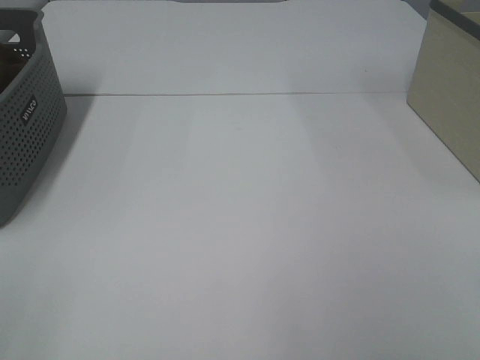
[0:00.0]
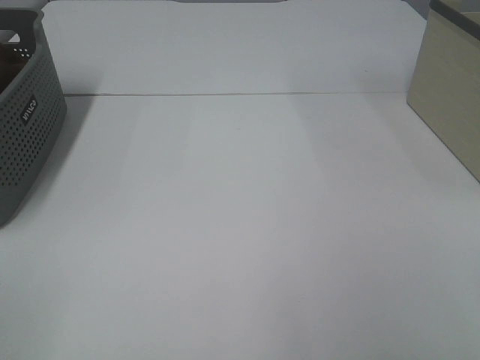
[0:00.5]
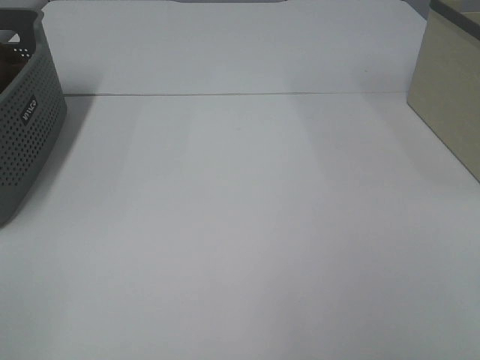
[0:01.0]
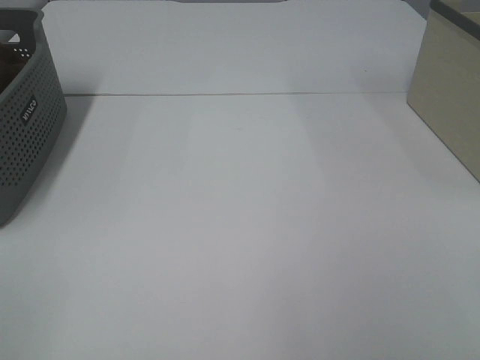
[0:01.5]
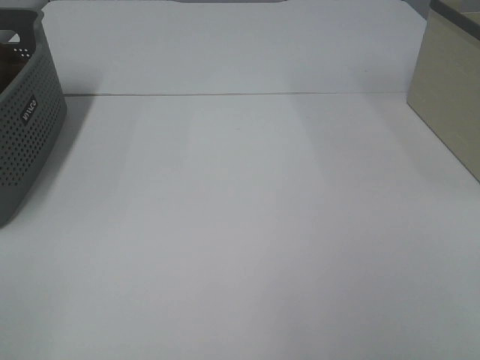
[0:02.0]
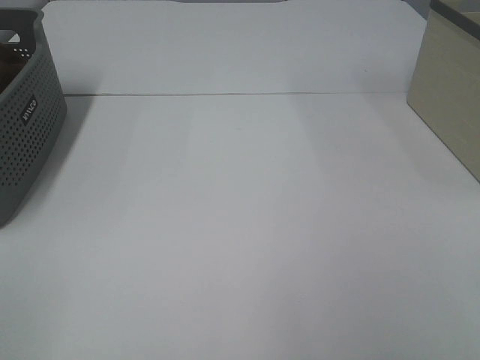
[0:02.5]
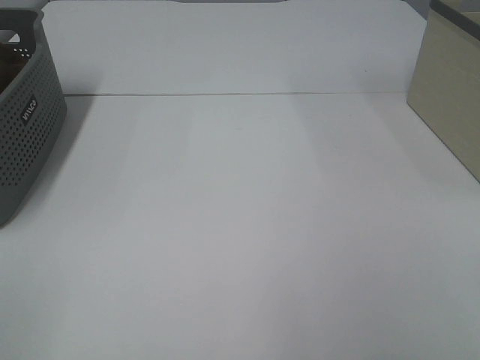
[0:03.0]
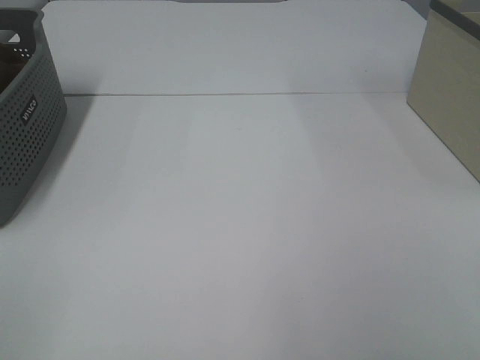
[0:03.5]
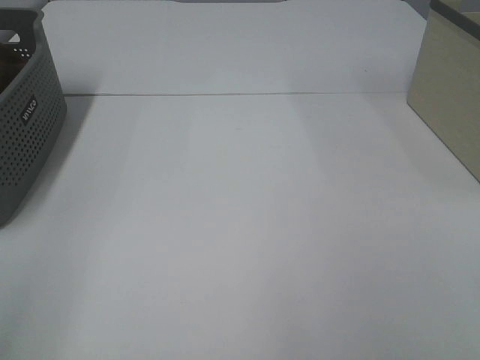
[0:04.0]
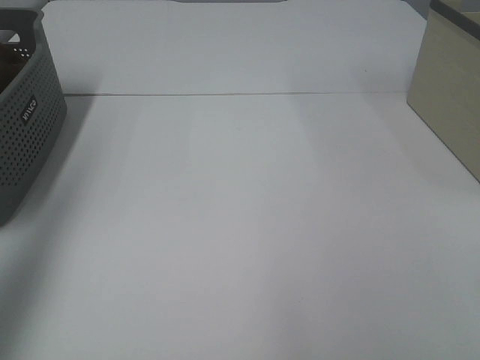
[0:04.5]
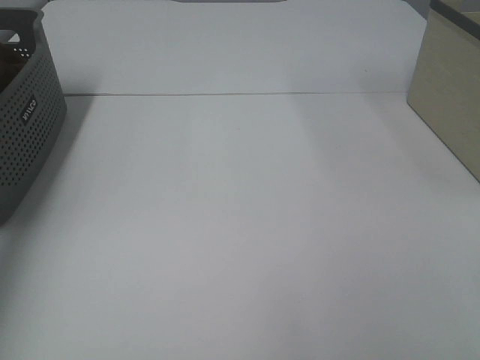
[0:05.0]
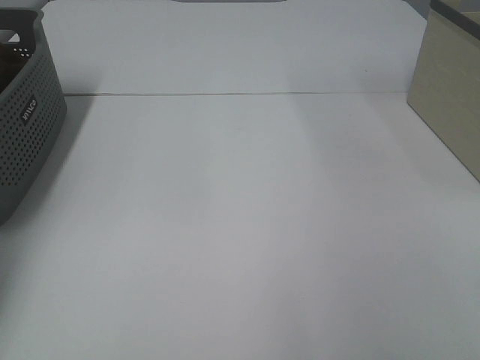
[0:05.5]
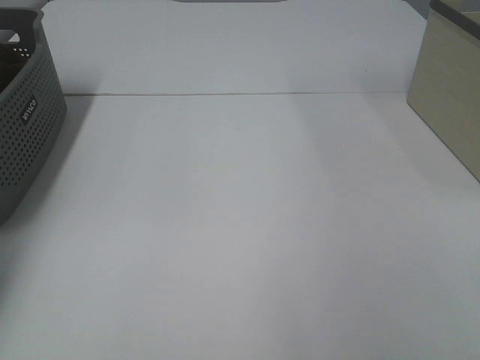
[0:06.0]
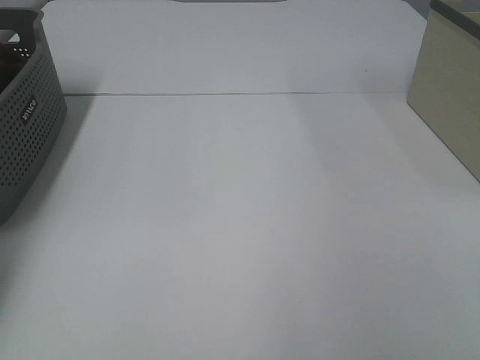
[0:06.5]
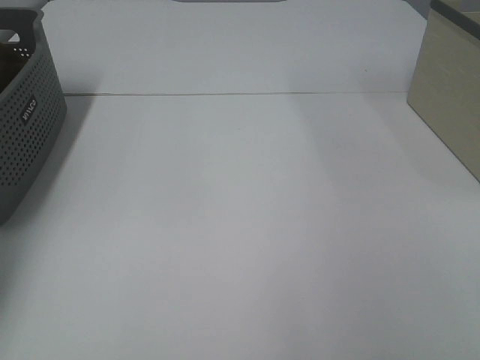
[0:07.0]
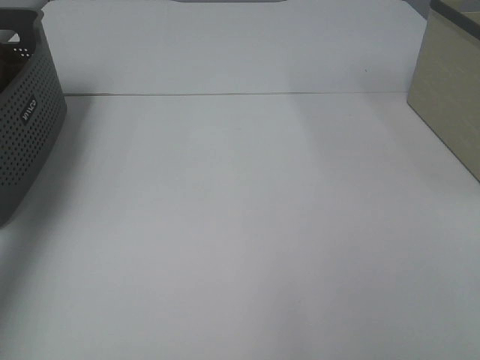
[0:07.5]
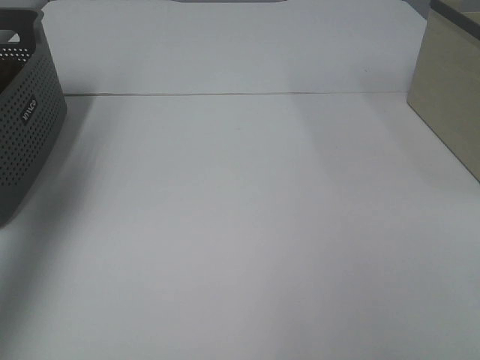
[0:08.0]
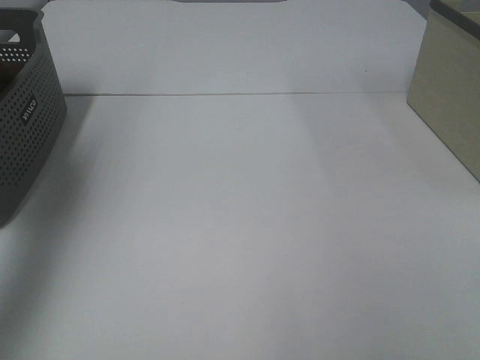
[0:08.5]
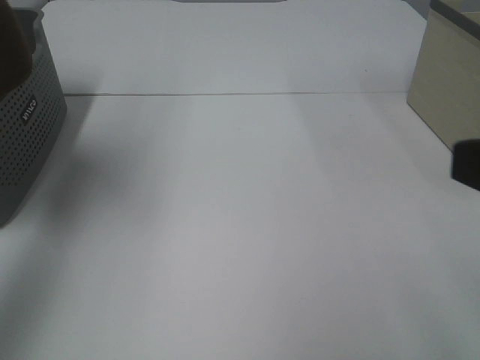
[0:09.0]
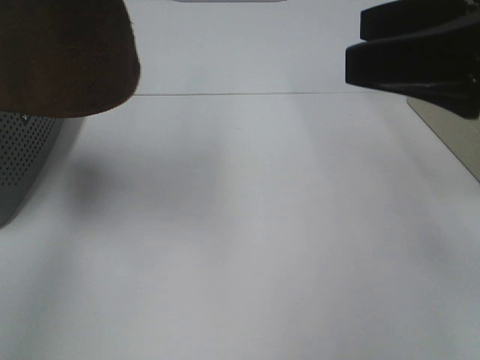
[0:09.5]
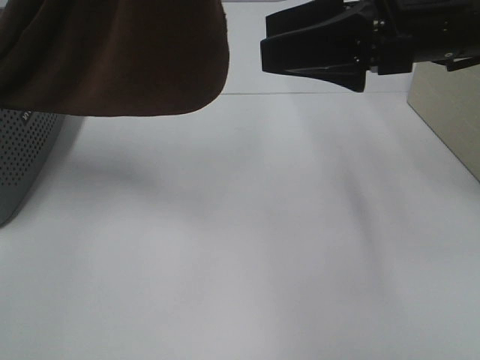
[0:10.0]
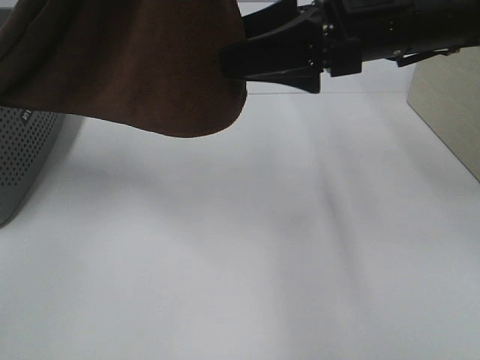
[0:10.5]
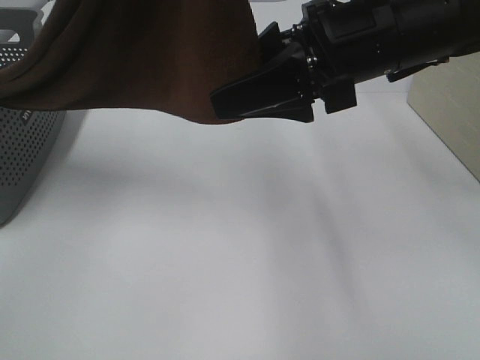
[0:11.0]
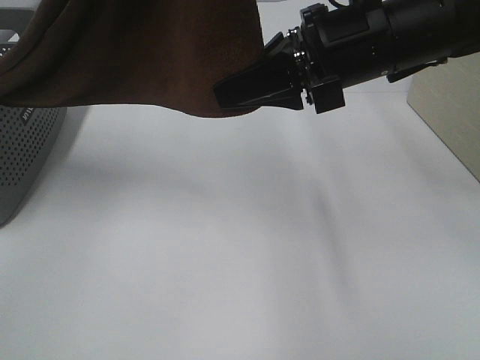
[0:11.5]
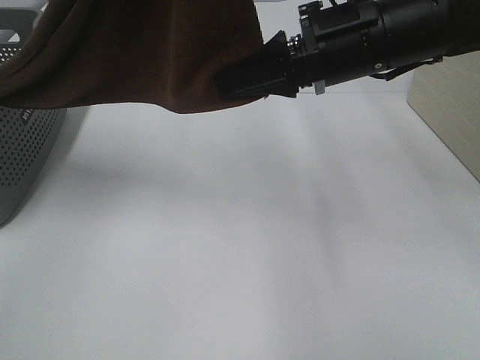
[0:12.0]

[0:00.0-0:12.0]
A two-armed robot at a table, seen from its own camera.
Task of the whole recording: Remove the towel and place it.
Step, 0:08.0 to 0:12.0: Right hand: grab a corner of the brown towel and straighten it.
0:00.0 to 0:02.0: Both grippers stay put.
0:04.0 to 0:06.0: The left gripper goes some 40 cm forward.
0:06.0 to 0:08.0: The left gripper is displaced upward and backward by approximately 35 cm, and closes up.
0:08.0 to 0:10.0: The left gripper shifts approximately 20 cm to the right. Meanwhile the right gripper travels forward and to the left by approximately 35 cm.
0:10.0 to 0:12.0: The right gripper closes its fingers.

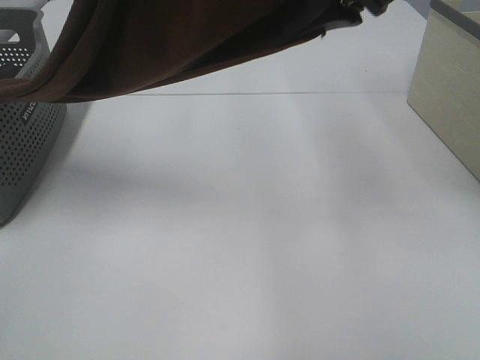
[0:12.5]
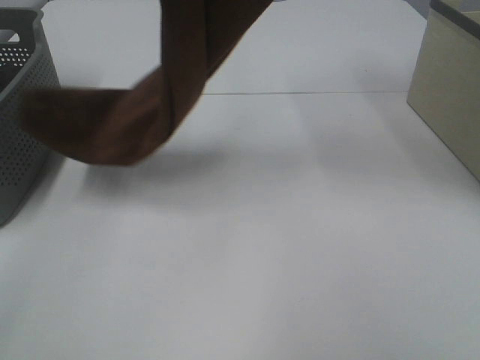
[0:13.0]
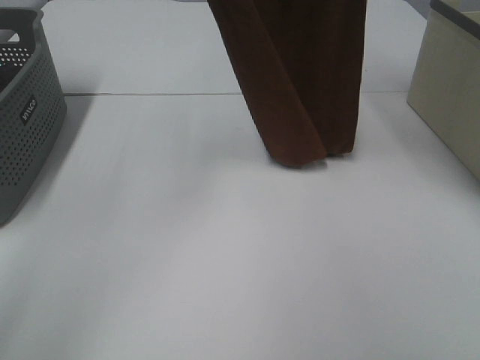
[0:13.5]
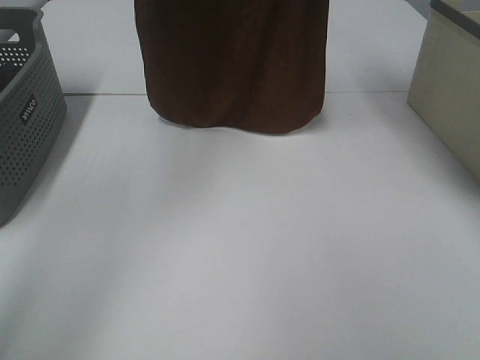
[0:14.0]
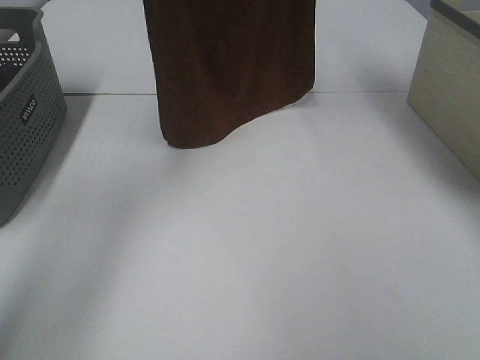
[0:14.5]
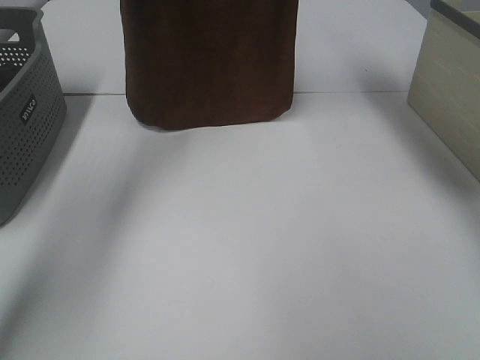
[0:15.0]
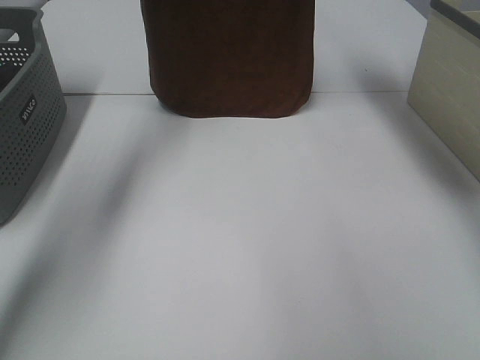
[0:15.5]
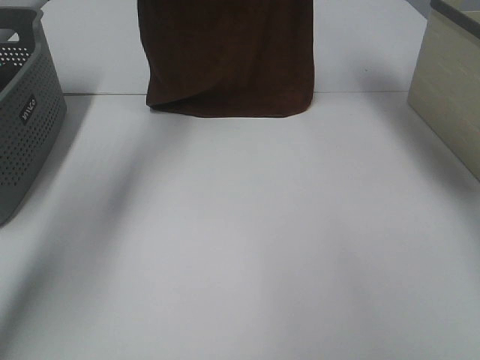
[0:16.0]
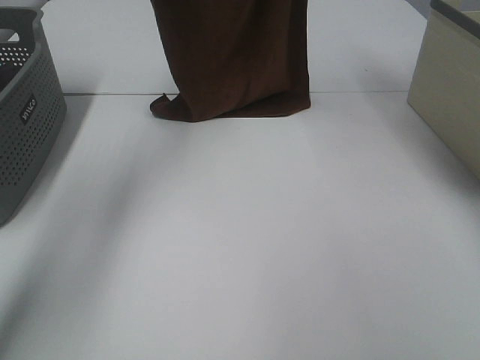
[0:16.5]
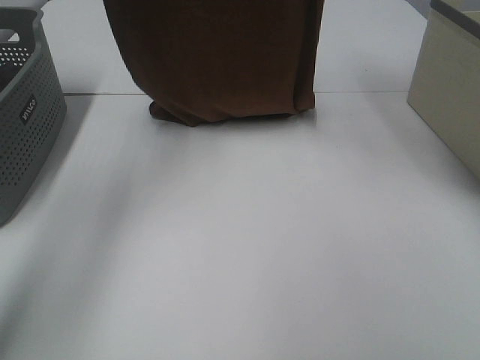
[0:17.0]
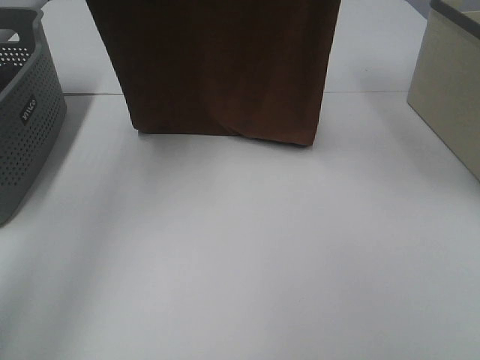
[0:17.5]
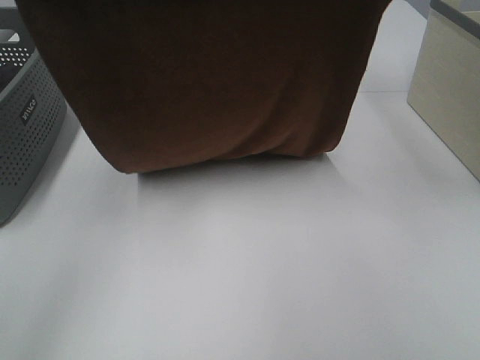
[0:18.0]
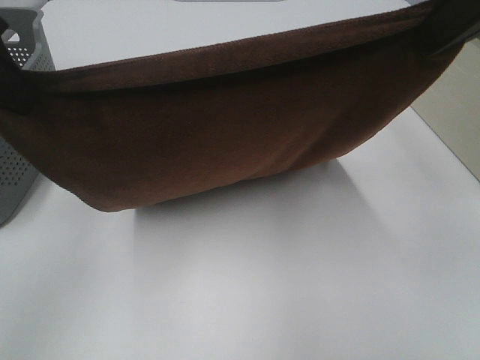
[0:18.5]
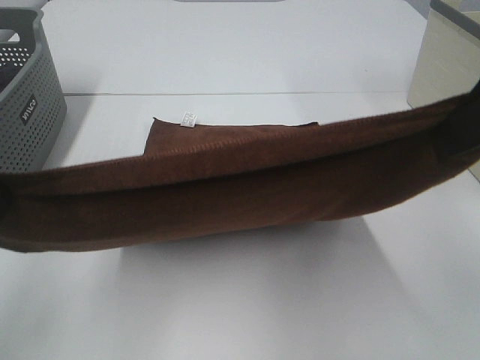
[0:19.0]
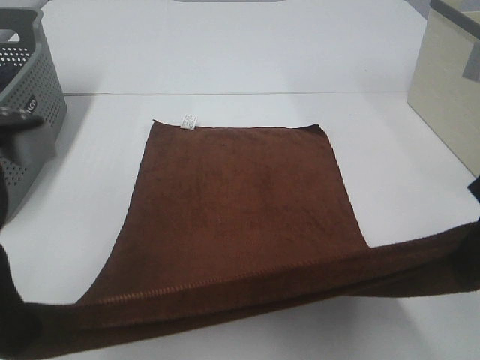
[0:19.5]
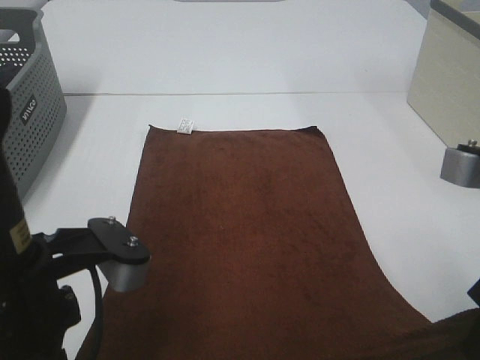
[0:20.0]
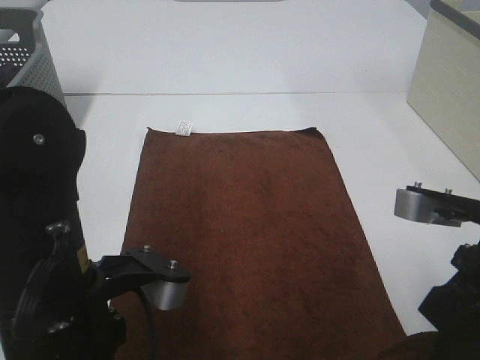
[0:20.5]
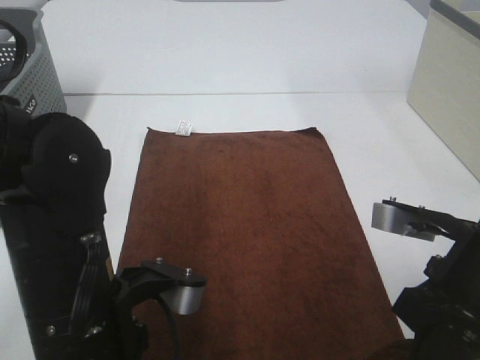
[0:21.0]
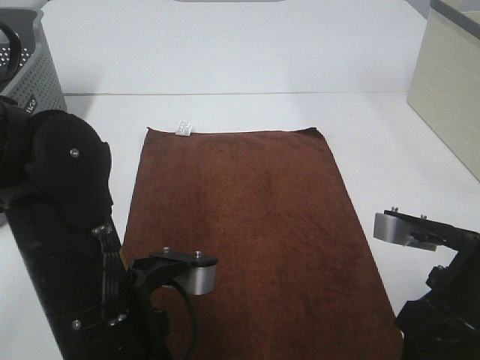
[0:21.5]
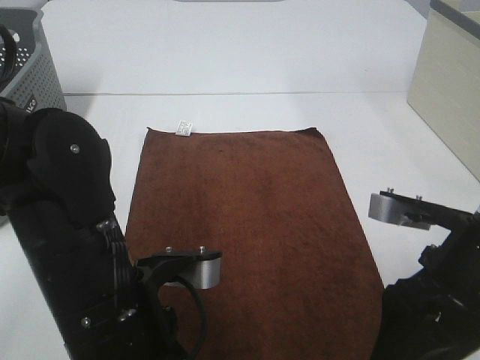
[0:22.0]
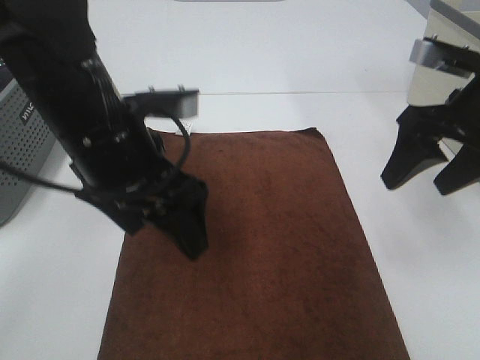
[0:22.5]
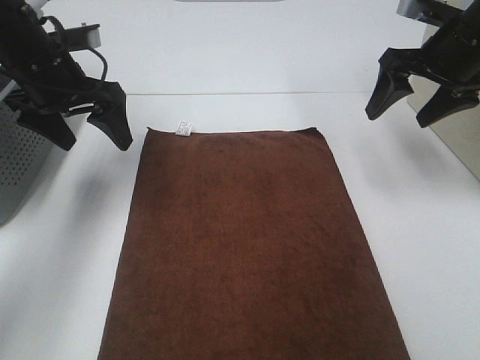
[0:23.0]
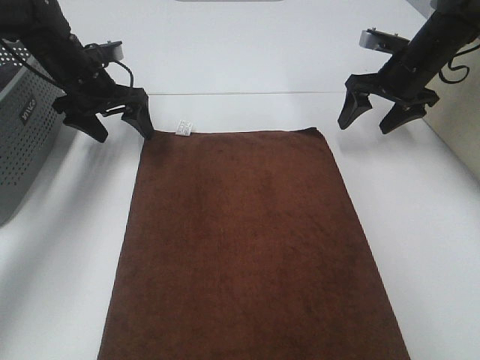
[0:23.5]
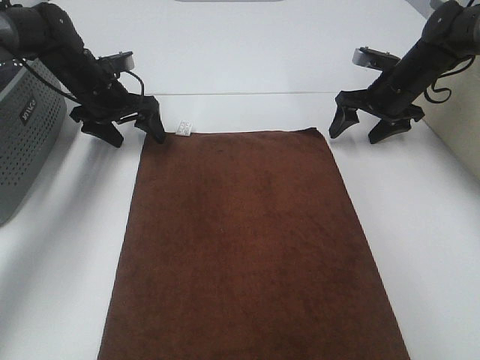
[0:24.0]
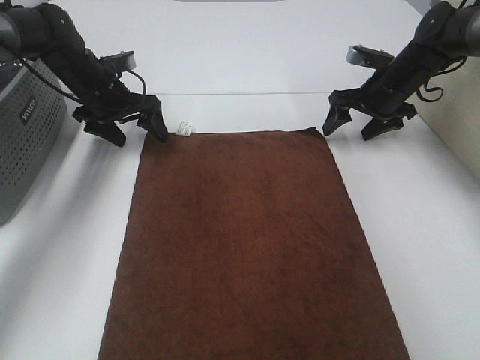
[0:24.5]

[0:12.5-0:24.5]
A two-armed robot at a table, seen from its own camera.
Task of the whole recording: Remove the towel and place it.
Step, 0:12.5 to 0:17.5: Left hand: spread the brown towel flat on the table.
Step, 0:12.5 to 0:17.5: Right hand: spread the brown towel flat on the table.
Step, 0:18.0 to 0:24.0: Left hand:adjust the brown towel.
Step, 0:18.0 to 0:24.0: Right hand:adjust the brown towel.
0:12.5 to 0:14.5: The right gripper is displaced upward and forward by some 20 cm, while the left gripper moves forward, about 20 cm.
0:16.5 to 0:18.5: Both grippers travel together backward, approximately 25 cm.
0:18.5 to 0:20.5: The left gripper heads downward, to the right and backward, covering some 25 cm. The right gripper moves downward, roughly 20 cm.
0:20.5 to 0:22.5: The two grippers go approximately 15 cm forward. The right gripper opens, while the left gripper opens up.
0:22.5 to 0:24.5: The right gripper goes roughly 25 cm forward and downward. Meanwhile the left gripper is displaced forward, downward and to the left by about 30 cm.

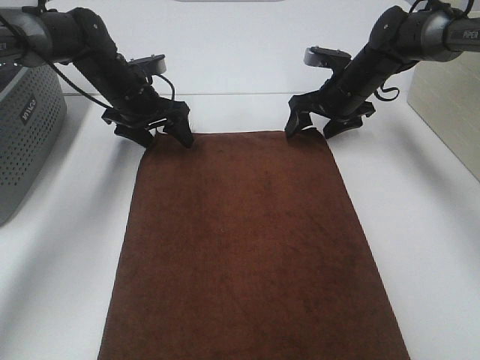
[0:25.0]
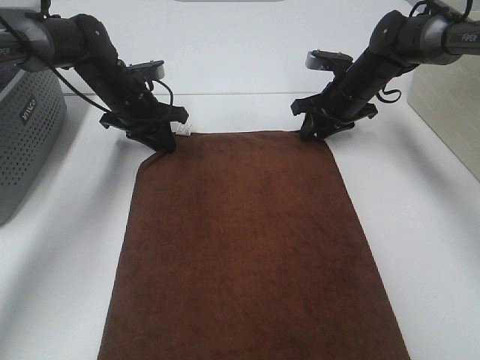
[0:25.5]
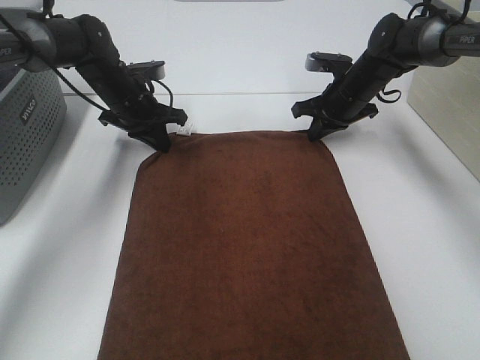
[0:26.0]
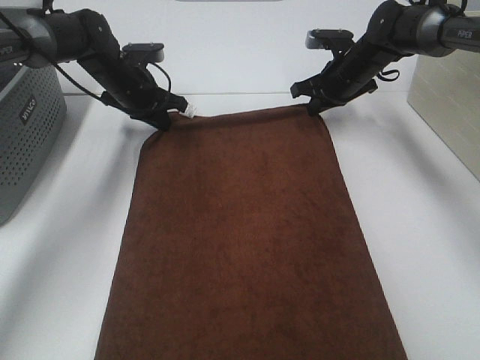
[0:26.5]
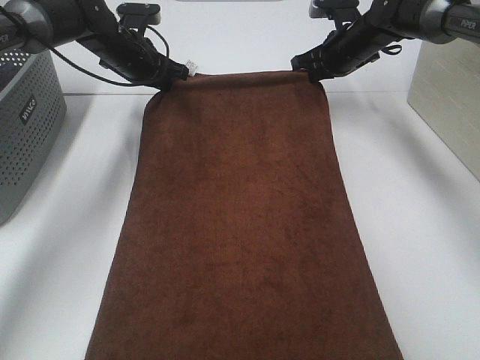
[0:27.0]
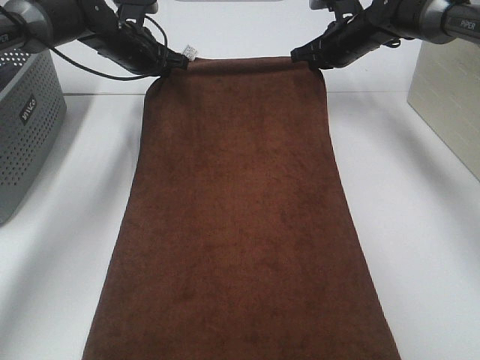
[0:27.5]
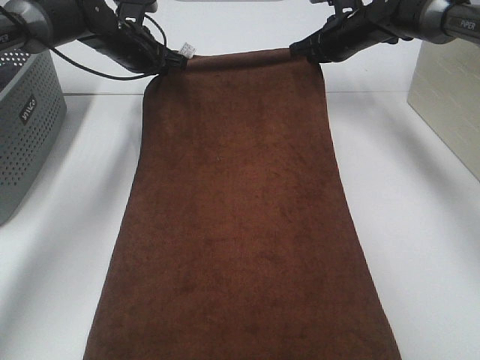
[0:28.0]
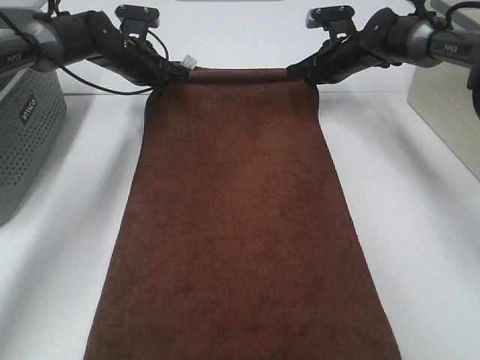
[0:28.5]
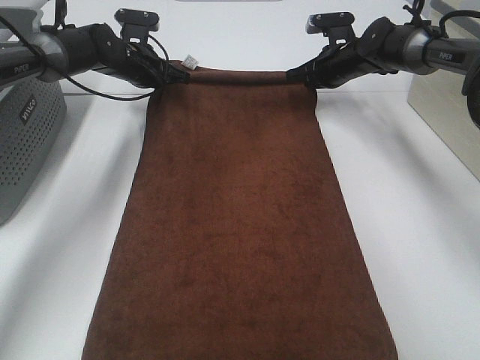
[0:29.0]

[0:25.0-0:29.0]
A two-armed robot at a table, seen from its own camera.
Task of the whole recording: Remove the towel and place it.
0:25.0 to 0:27.0: The right gripper heads upward, covering some 5 cm, and closes up; the left gripper changes place by some 5 cm, and closes.
0:27.0 to 0:29.0: The grippers make only small movements.
